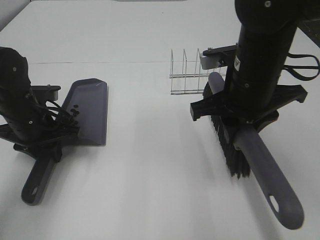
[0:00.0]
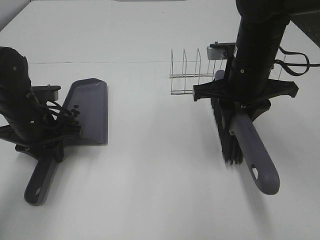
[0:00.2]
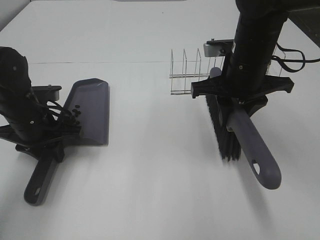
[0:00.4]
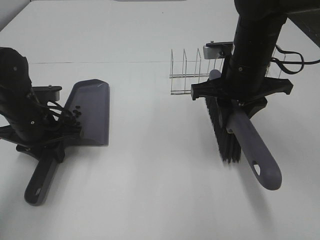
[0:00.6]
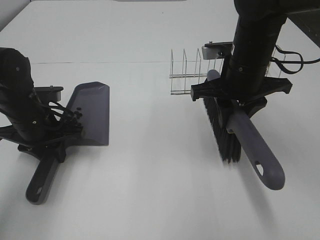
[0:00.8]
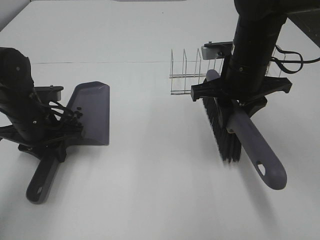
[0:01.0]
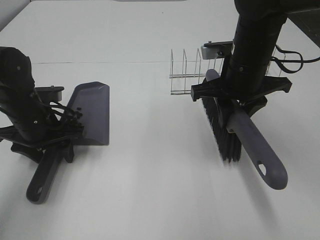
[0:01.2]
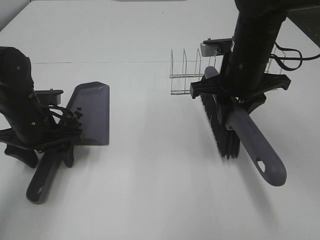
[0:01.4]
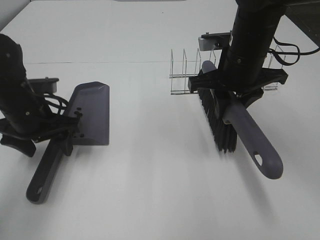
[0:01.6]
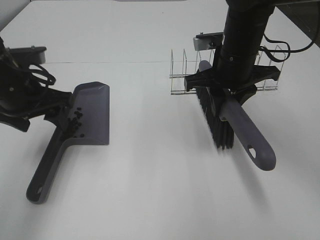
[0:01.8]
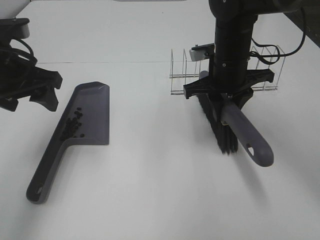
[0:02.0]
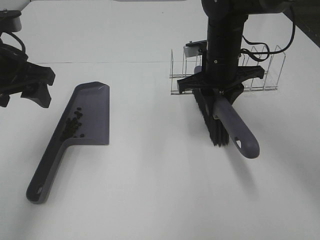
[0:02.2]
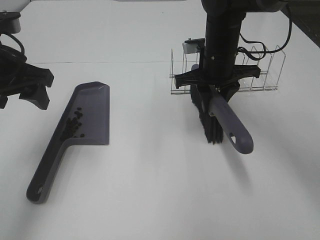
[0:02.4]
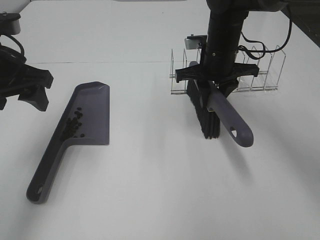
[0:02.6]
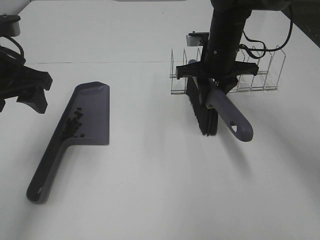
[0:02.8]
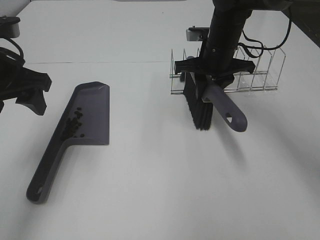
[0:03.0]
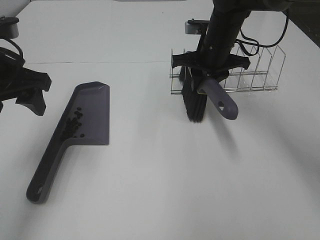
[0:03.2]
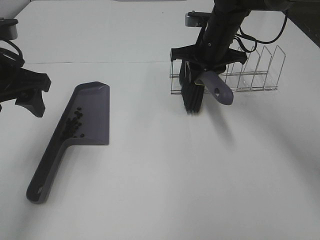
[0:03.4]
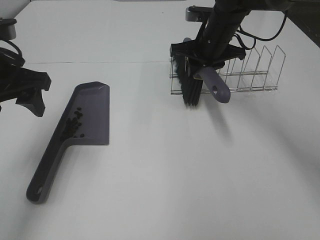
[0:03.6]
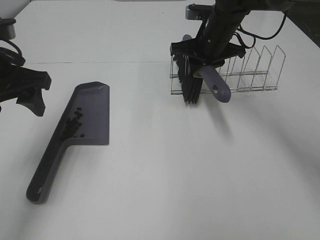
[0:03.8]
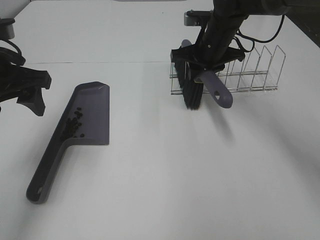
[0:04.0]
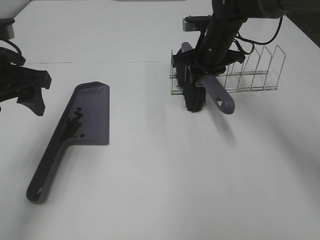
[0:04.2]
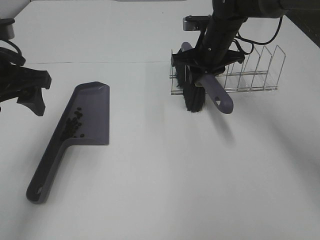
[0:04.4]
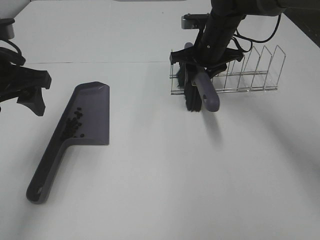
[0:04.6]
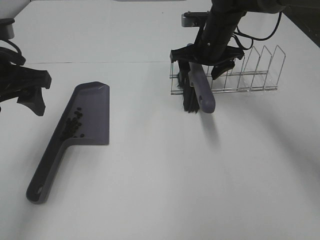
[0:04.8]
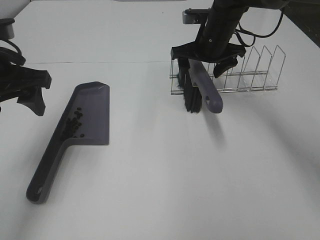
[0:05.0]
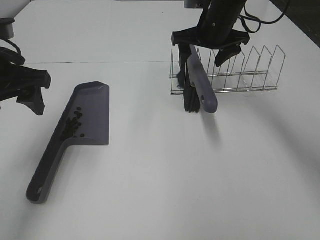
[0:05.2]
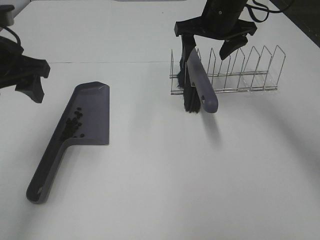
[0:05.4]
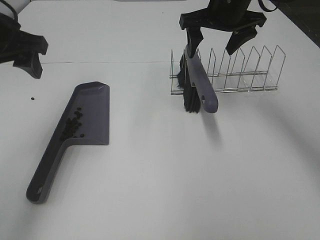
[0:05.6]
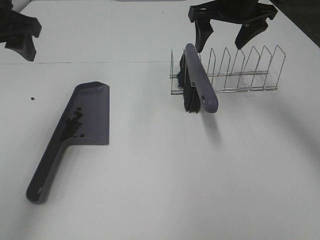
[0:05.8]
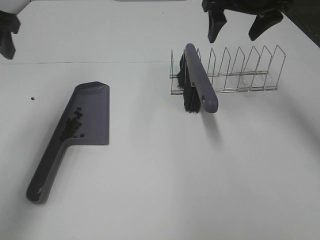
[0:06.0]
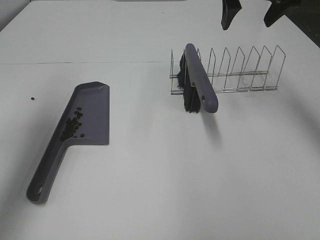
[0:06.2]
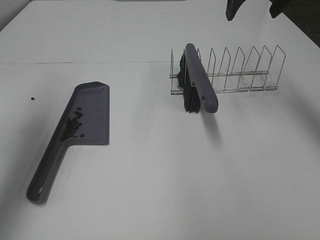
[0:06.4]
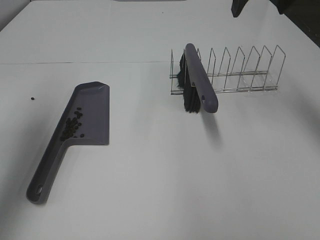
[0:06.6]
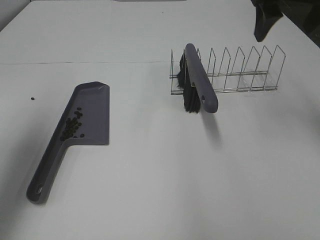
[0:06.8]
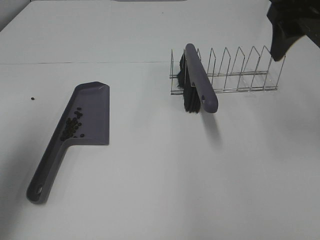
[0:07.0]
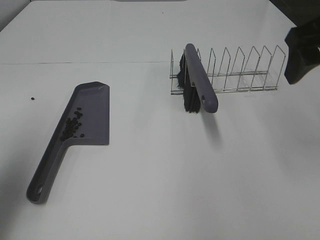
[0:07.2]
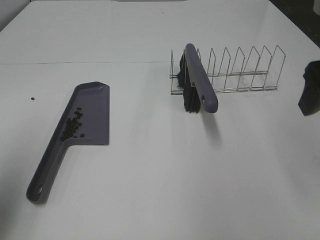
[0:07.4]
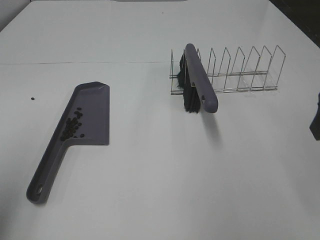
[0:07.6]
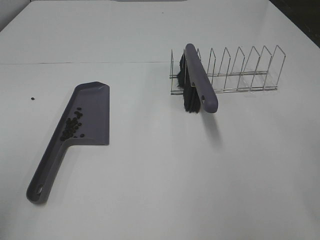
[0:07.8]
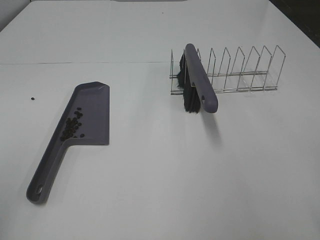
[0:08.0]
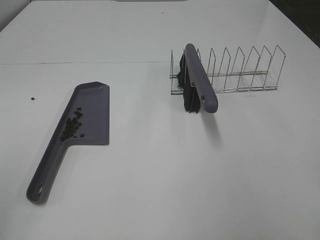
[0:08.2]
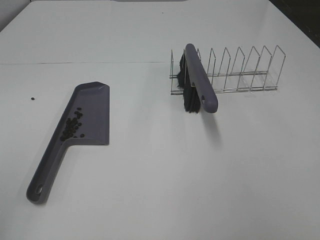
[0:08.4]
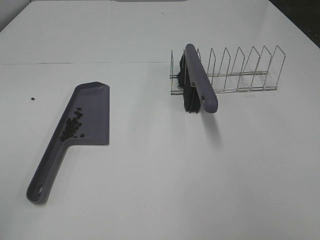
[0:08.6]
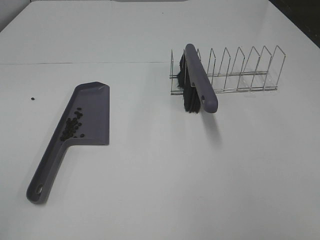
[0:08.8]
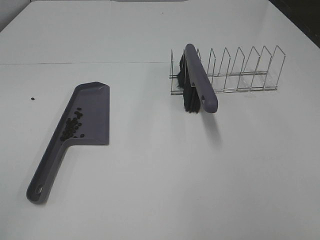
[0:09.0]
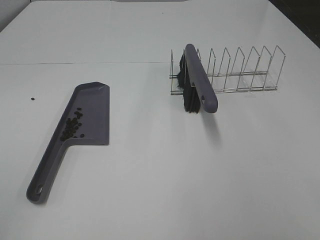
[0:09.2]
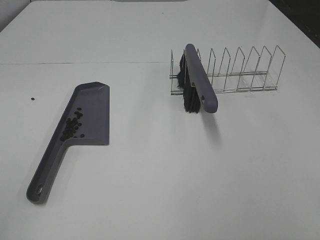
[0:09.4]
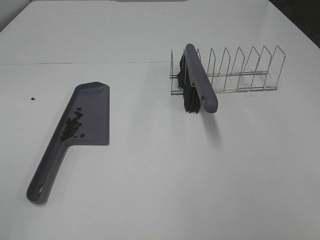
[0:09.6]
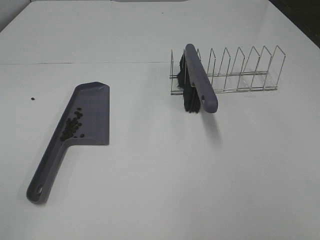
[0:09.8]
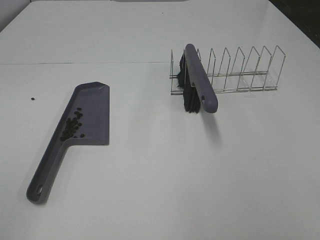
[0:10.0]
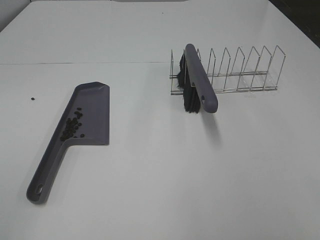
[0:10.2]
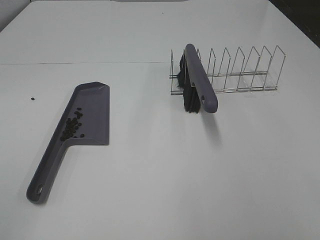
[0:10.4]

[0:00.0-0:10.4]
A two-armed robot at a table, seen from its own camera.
Task of the whole recording: Sweep Coffee Bean.
Step, 0:01.8 to 0:05.0: Right hand:place the broom on the rack.
0:00.0 to 0:01.4: The left gripper opens; the right gripper heads forward, covering roughly 5 cm.
0:01.4 to 0:03.0: The left gripper moves upward, roughly 15 cm; the right gripper moves forward, approximately 10 cm.
0:03.0 to 0:04.4: The grippers stay close to where they were, moving slightly.
0:04.4 to 0:06.0: The left gripper travels upward by some 5 cm, while the right gripper travels upward by roughly 15 cm, and opens its fingers.
0:06.0 to 0:07.4: Both grippers move backward, roughly 20 cm.
0:07.4 to 0:09.0: Both grippers travel together backward, some 20 cm.

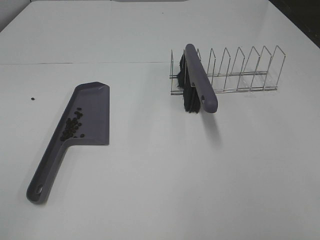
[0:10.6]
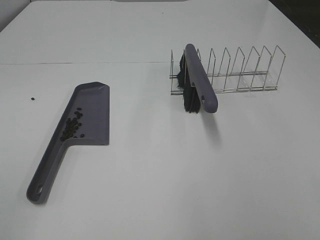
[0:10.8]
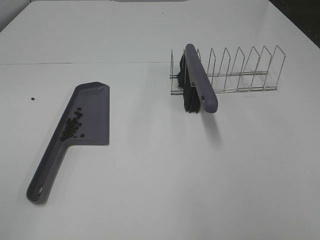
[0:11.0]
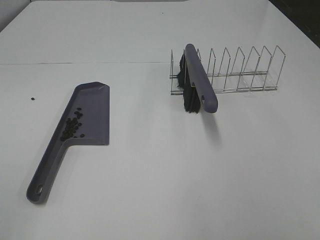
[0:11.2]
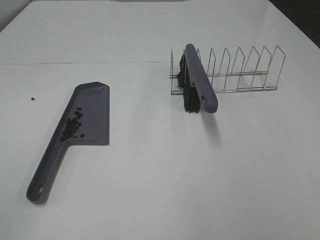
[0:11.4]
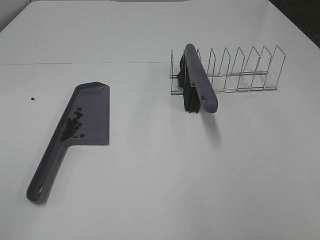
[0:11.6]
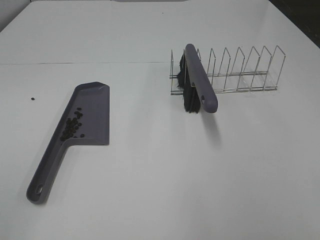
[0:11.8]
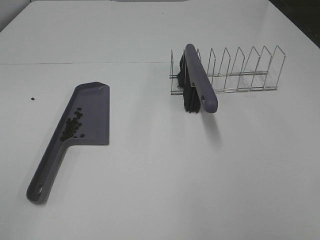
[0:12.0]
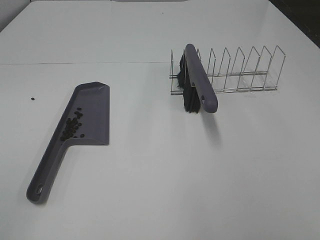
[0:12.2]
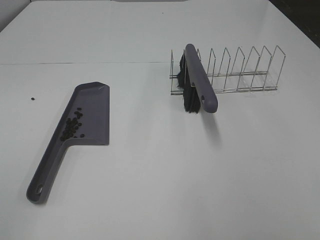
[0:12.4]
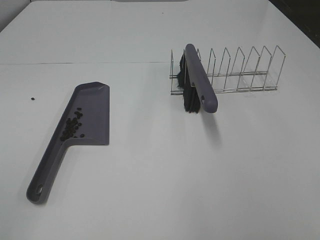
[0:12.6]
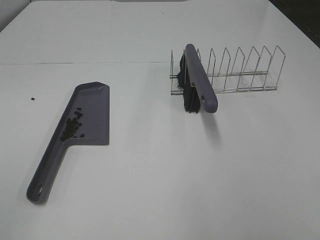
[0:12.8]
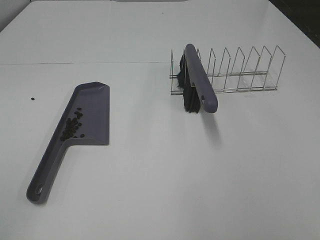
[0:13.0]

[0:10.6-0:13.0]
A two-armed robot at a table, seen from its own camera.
Task of the whole recording: Sweep Coffee Bean.
0:11.8 to 0:13.0: Both grippers stay put.

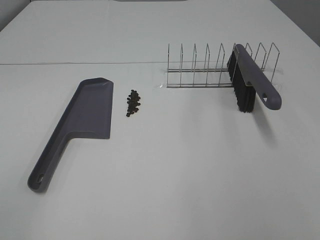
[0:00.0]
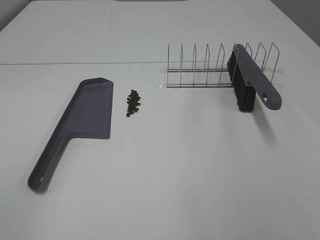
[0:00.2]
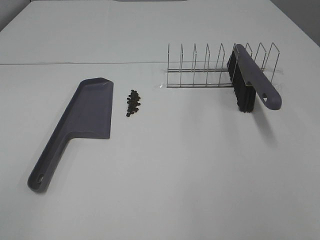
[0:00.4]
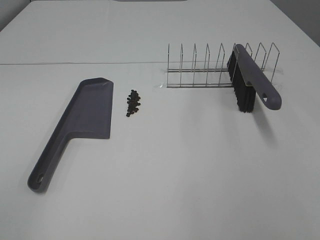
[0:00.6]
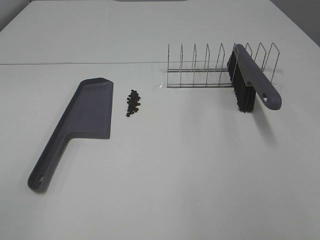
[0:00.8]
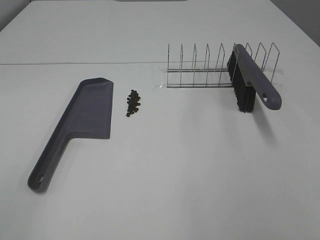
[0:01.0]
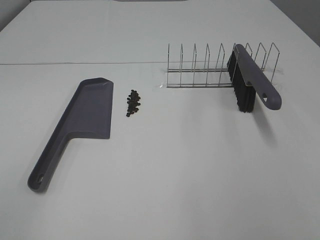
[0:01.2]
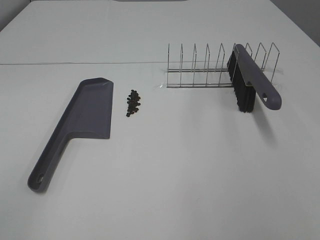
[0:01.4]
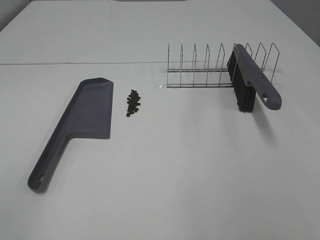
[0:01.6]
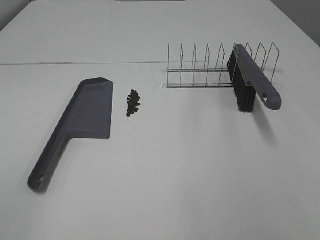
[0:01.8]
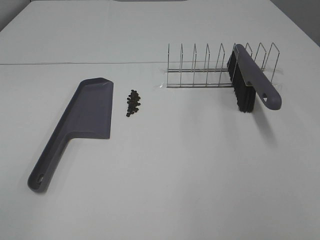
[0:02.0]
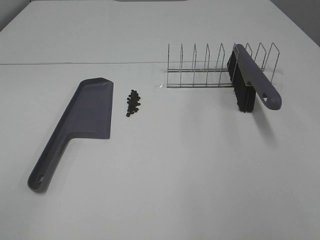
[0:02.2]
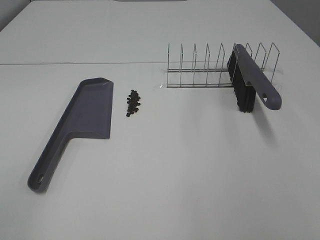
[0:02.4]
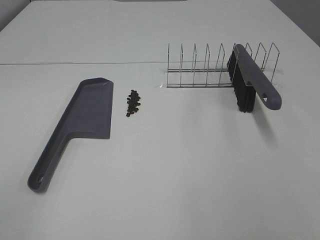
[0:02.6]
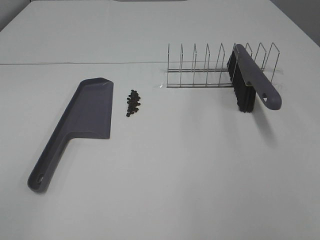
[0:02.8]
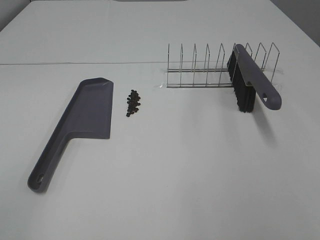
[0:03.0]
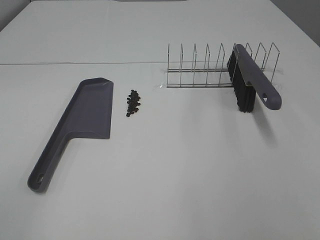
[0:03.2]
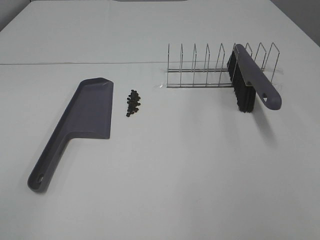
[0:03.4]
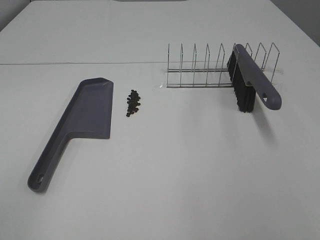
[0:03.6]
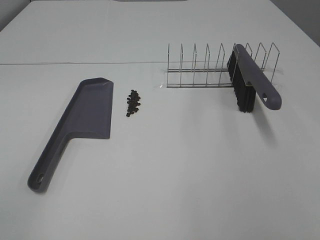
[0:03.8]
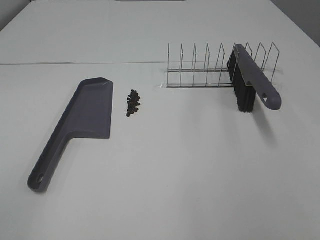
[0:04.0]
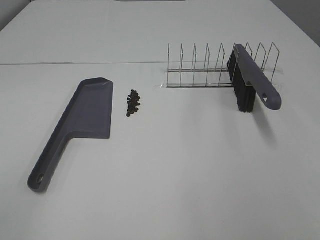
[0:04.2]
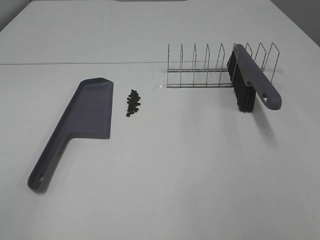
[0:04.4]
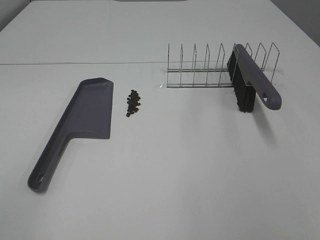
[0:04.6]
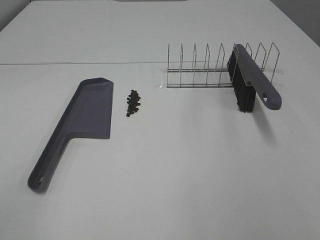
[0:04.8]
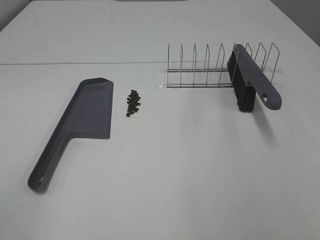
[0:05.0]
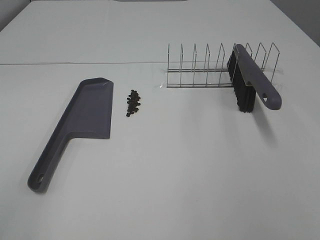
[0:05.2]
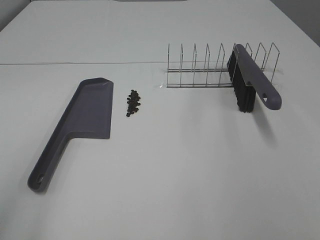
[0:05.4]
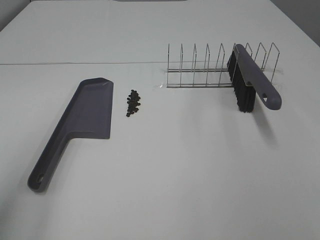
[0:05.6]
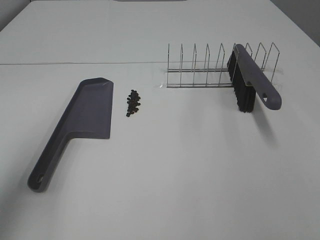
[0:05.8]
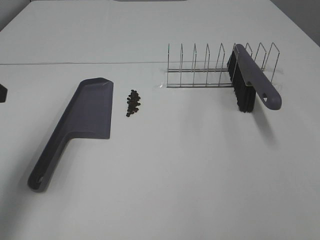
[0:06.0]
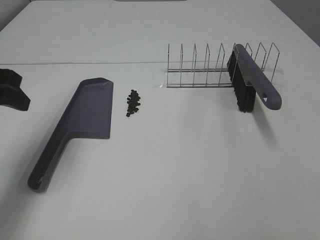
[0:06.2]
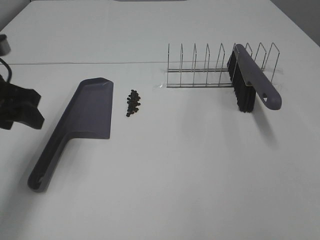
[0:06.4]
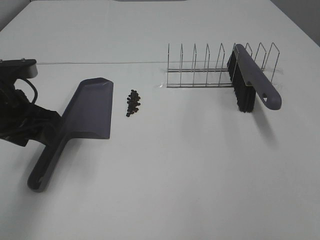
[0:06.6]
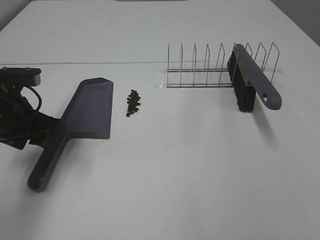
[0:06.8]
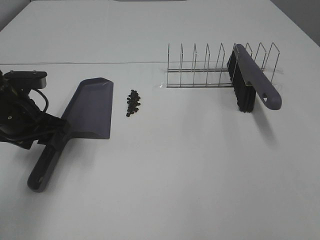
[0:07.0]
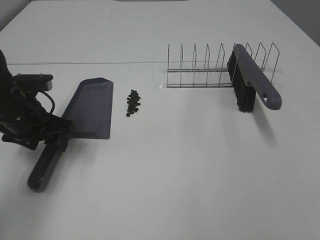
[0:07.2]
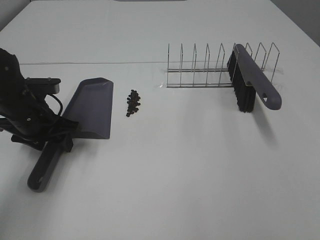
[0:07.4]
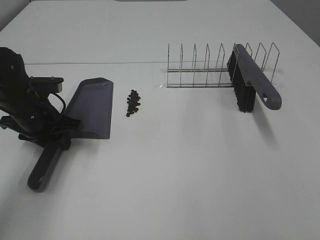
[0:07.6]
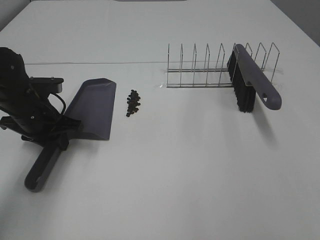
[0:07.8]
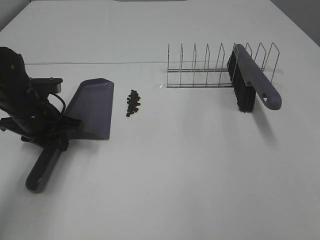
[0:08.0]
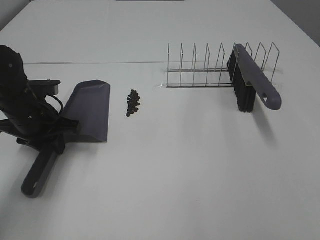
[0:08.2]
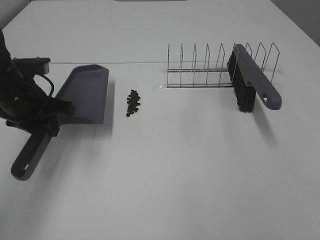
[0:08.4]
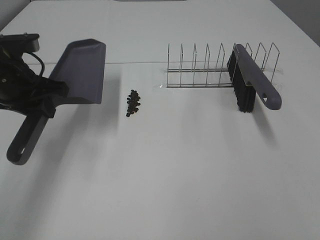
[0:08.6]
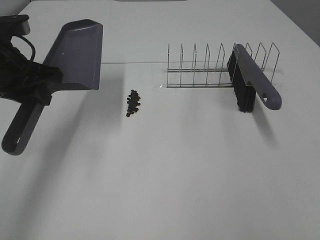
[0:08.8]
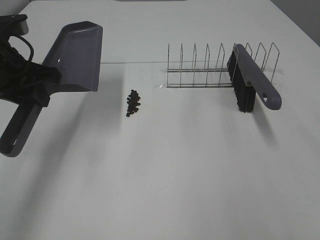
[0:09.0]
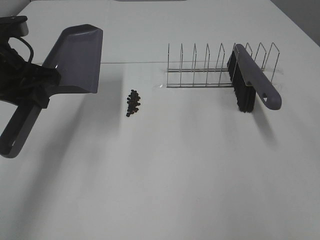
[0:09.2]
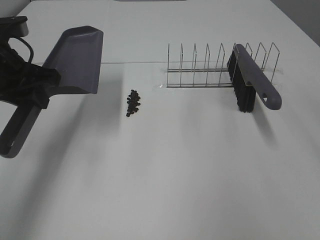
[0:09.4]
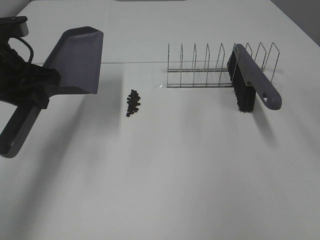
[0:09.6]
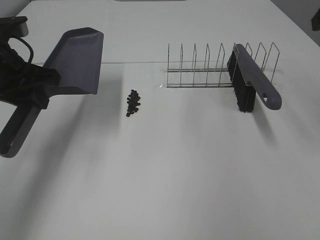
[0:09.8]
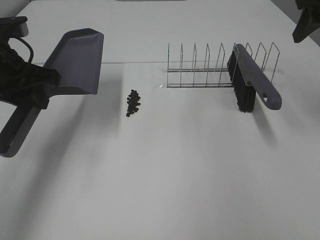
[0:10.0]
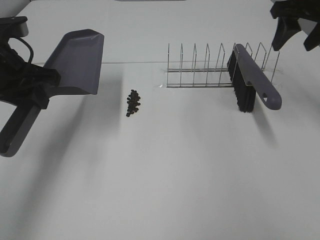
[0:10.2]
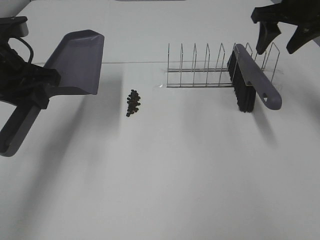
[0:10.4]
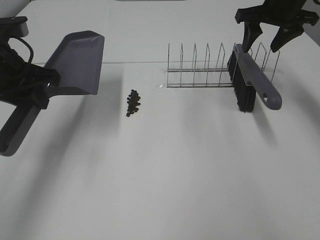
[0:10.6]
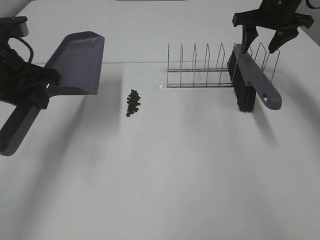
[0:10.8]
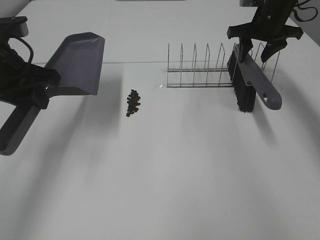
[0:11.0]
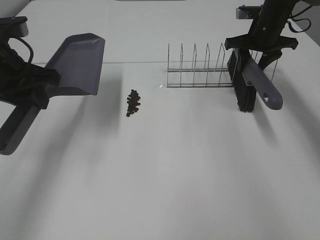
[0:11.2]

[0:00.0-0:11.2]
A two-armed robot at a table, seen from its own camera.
Task of the whole recording: Sweep Coffee Bean.
Step, 0:00.0 to 0:07.8: Left hand: grab the dustpan.
0:00.0 to 0:04.8: Both grippers stay put.
0:04.8 to 0:06.4: The left gripper is displaced forward by approximately 30 cm, and opens.
0:06.4 to 0:08.0: The left gripper moves downward and forward, about 10 cm, and closes up.
0:08.0 to 0:09.6: The right gripper travels forward by approximately 25 cm. Meanwhile the left gripper shifts roughly 10 cm upward.
0:09.6 to 0:11.2: The right gripper moves forward and downward, approximately 30 cm, and closes up.
